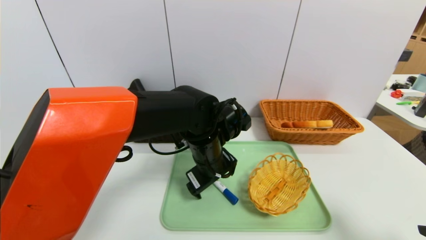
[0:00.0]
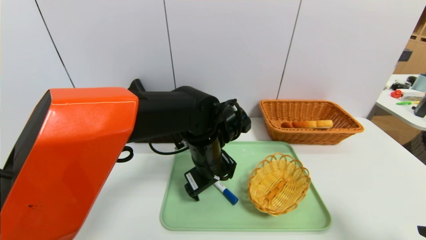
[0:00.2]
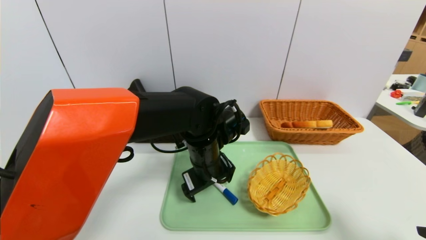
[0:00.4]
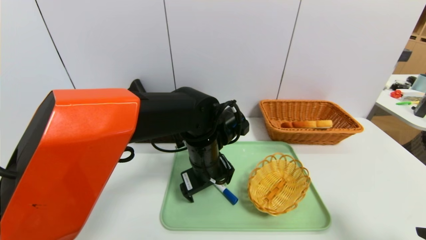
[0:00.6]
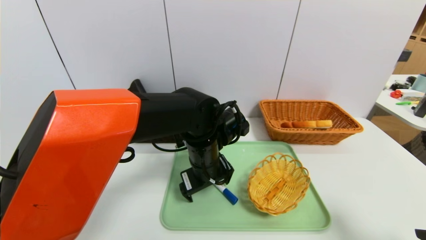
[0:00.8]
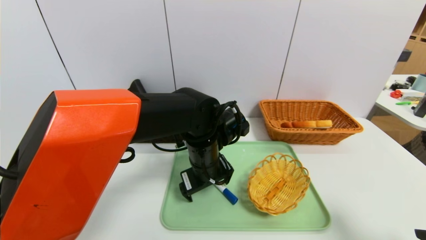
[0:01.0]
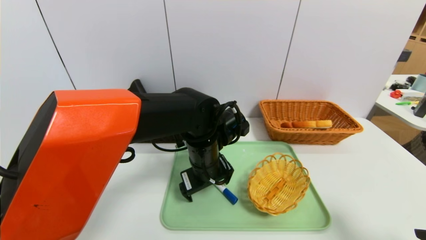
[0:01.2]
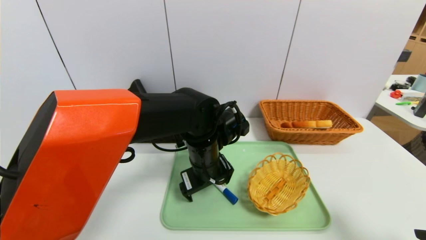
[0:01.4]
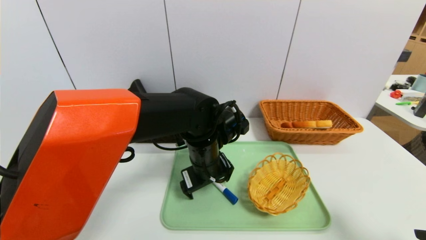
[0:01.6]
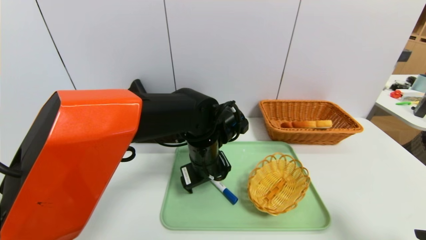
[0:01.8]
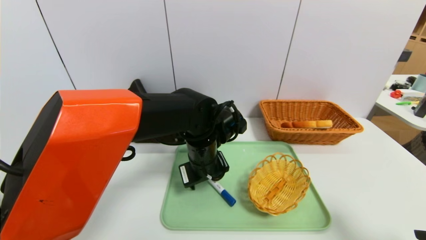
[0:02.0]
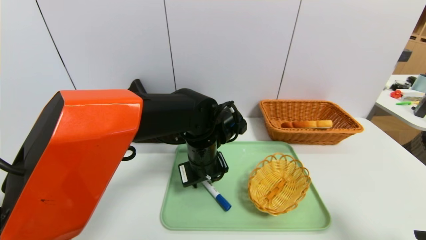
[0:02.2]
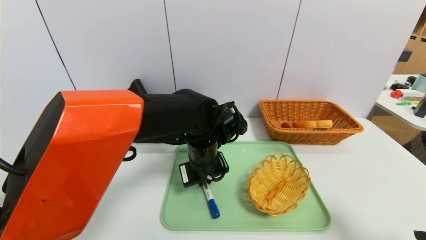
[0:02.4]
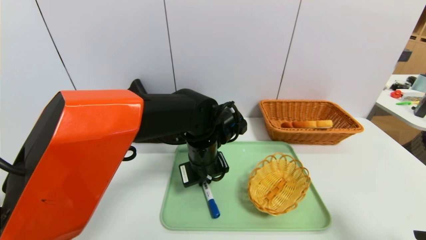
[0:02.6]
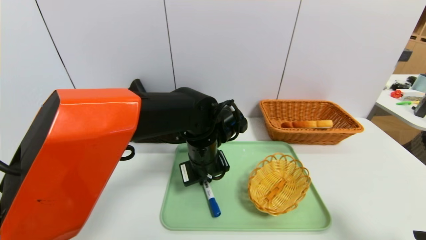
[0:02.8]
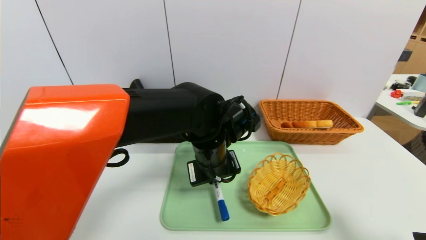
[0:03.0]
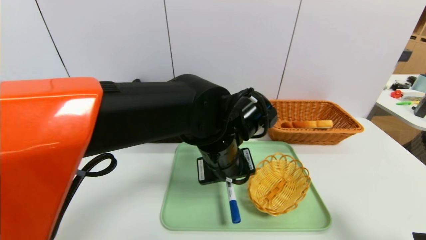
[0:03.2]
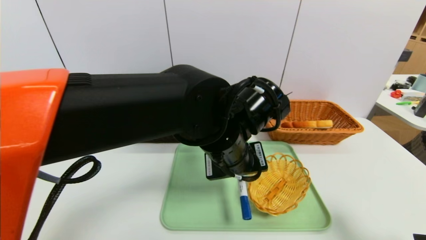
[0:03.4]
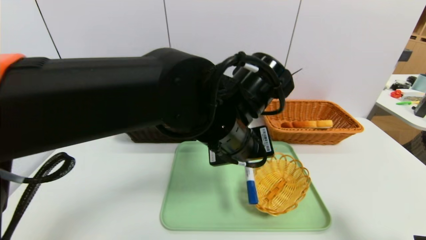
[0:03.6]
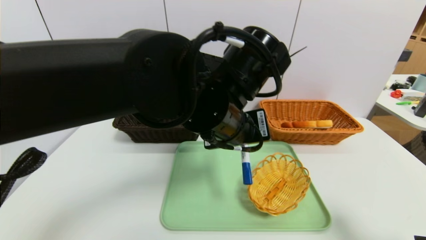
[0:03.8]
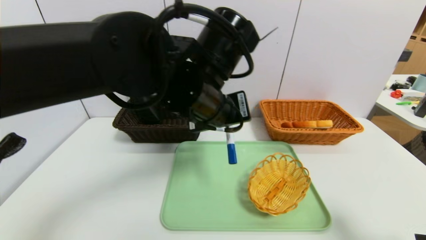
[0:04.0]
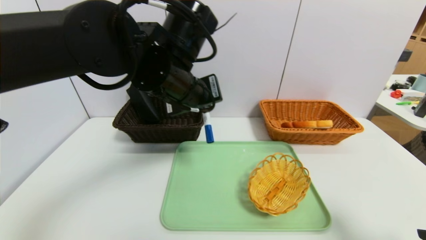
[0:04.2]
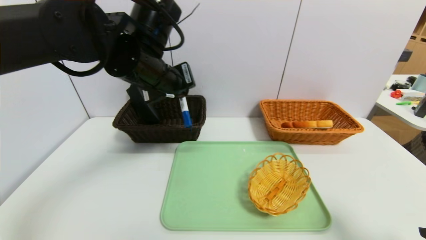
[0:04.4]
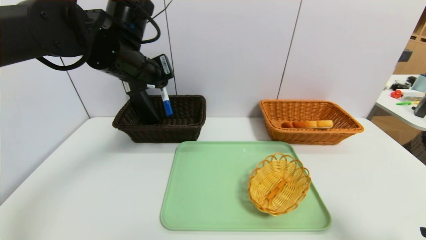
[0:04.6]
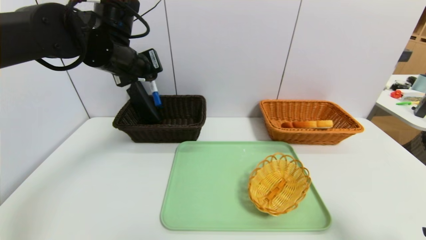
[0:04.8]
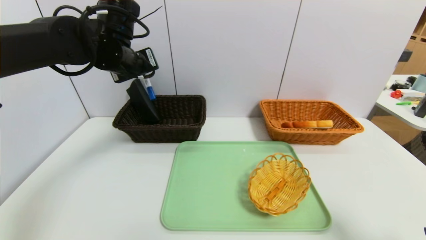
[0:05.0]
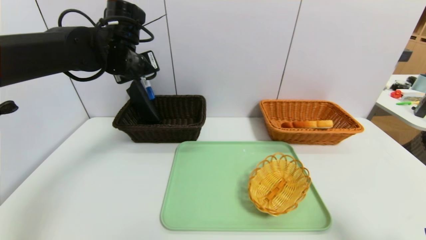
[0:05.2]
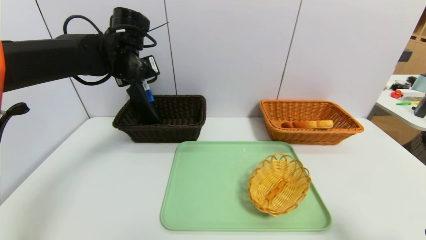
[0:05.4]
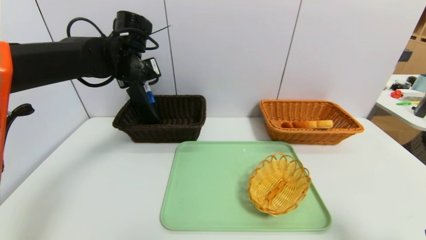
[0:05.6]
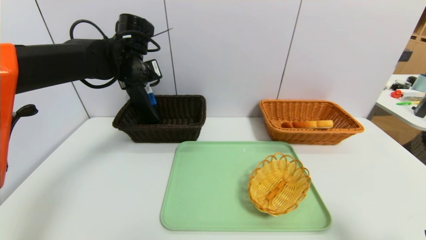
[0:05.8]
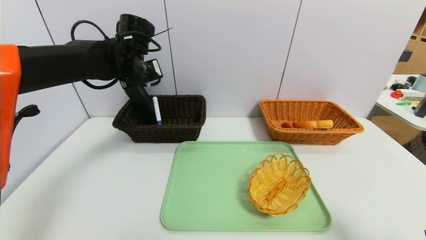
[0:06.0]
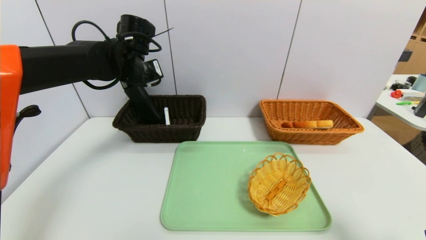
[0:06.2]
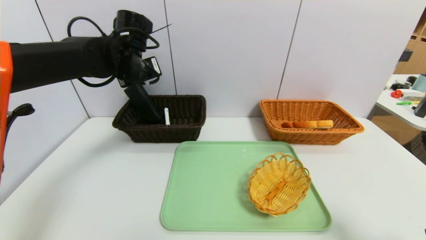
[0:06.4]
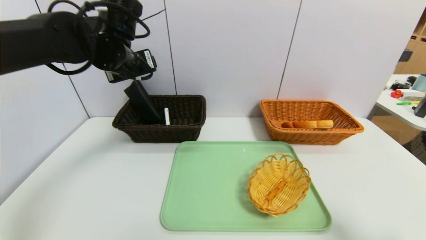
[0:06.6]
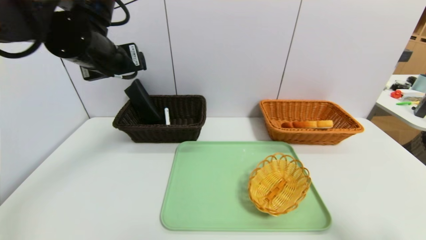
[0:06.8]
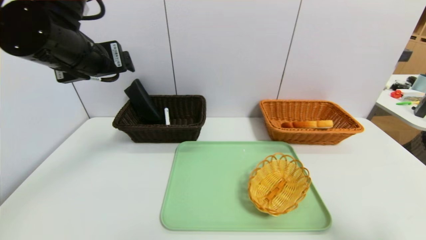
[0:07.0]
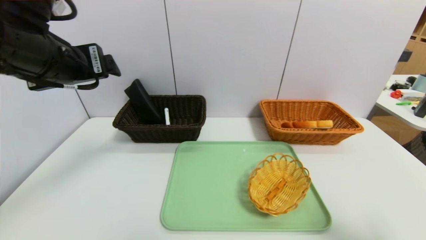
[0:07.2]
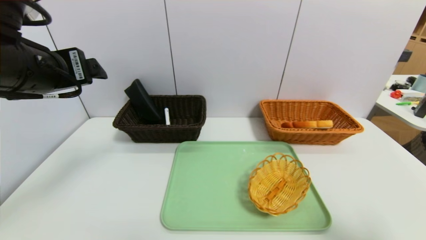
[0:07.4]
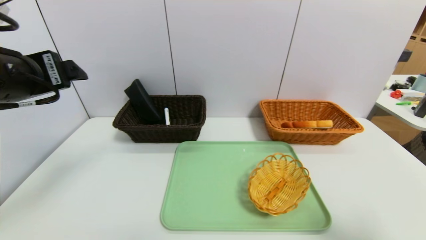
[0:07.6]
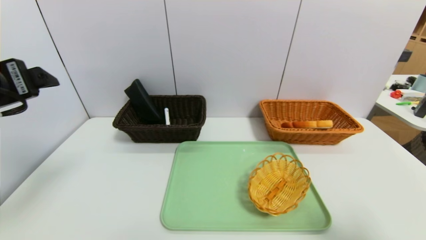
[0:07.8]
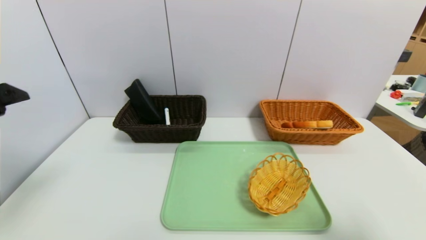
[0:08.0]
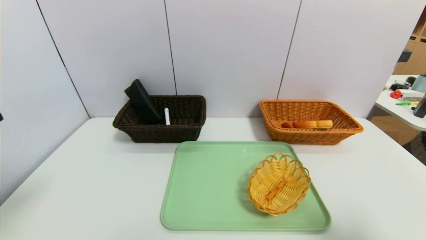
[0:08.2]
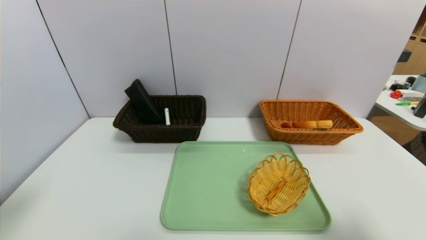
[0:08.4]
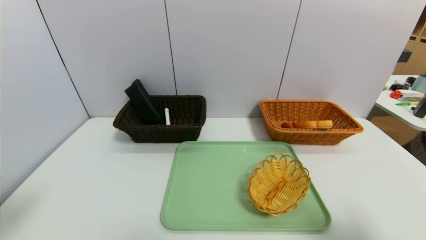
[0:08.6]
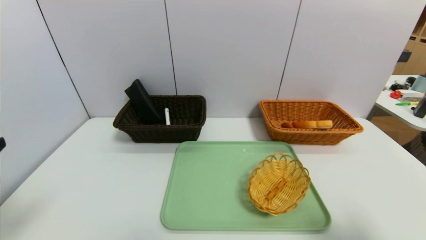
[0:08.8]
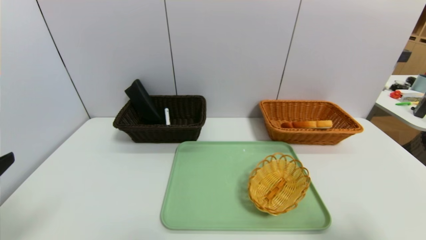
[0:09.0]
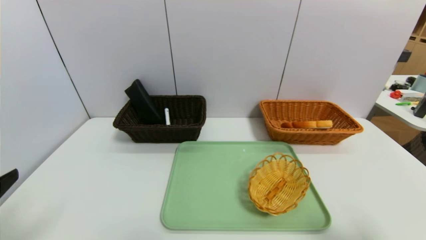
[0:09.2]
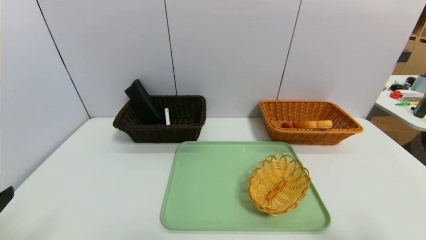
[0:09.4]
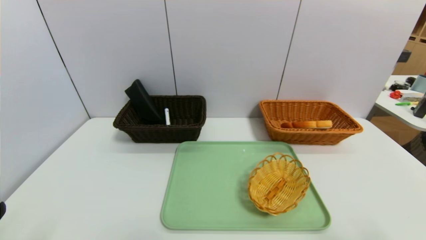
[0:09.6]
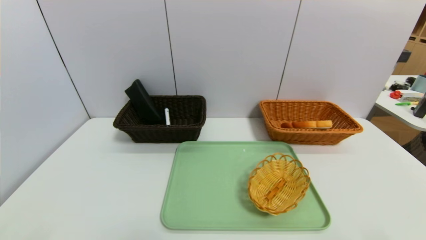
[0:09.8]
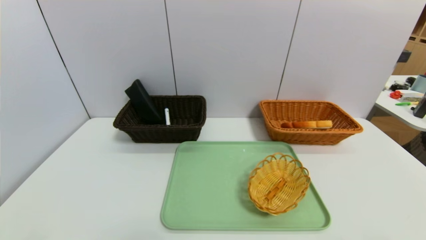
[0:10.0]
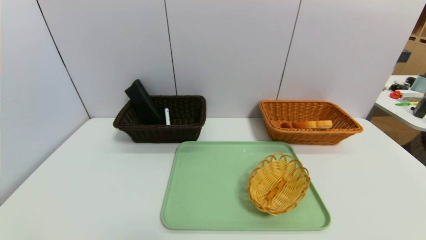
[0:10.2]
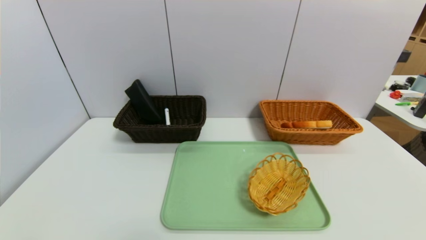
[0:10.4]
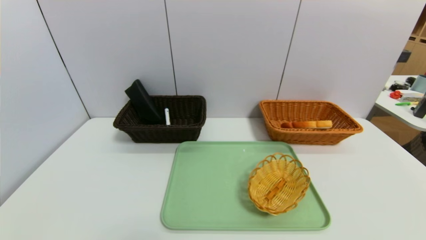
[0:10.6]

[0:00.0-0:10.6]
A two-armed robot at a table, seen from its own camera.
Task of the whole recording: place the food in the right basket with the right gripper, and place the non food items in the left basket with the left gripper.
Step, 0:00.0 to 0:06.0: Grasp the blue marker pen and put it in the left basket.
0:00.0 to 0:01.6: The grippers stay close to where they were, moving slightly.
0:01.6 to 0:03.0: The left gripper closes up.
0:03.0 to 0:04.6: The left gripper goes about 20 cm to the left, upward and forward.
0:04.6 to 0:06.0: The left gripper moves forward, approximately 5 cm, and opens its fingers.
0:06.0 to 0:07.6: The left gripper goes roughly 20 cm backward, and opens.
0:07.6 to 0:09.0: The left gripper heads backward, downward and to the left, covering some 15 cm.
0:09.0 to 0:10.6: The left gripper is displaced downward and backward by about 15 cm. Meanwhile the right gripper goes approximately 10 cm backward and downward.

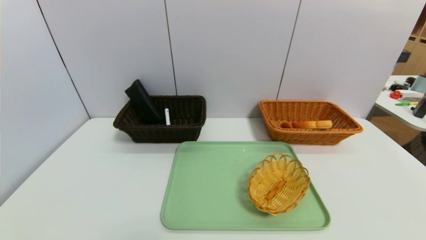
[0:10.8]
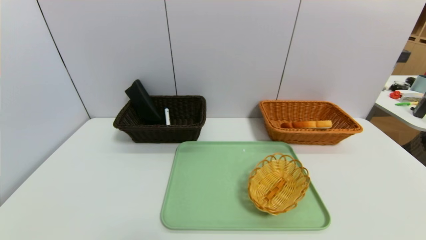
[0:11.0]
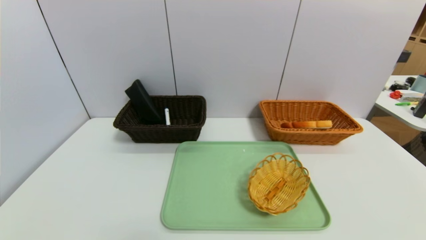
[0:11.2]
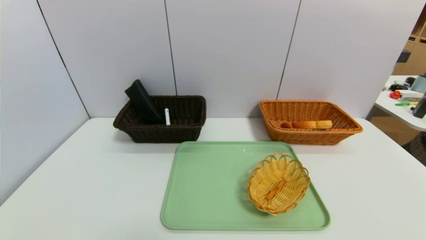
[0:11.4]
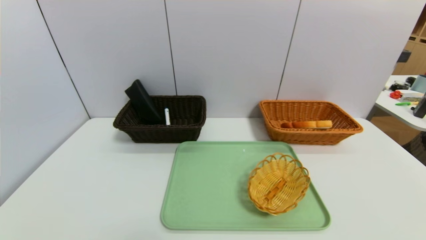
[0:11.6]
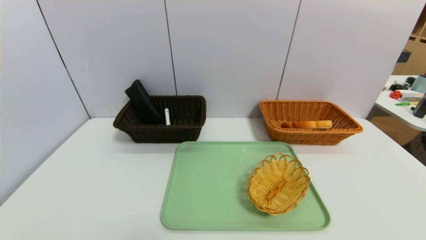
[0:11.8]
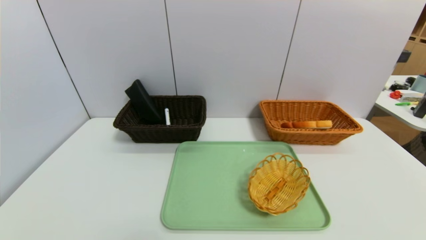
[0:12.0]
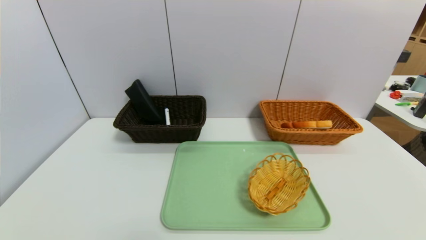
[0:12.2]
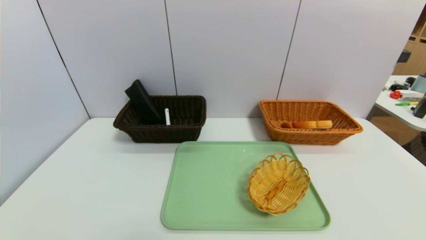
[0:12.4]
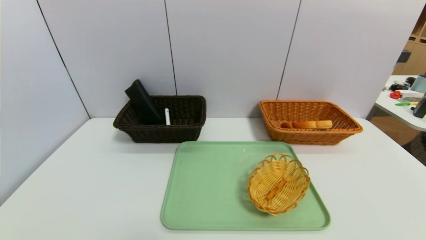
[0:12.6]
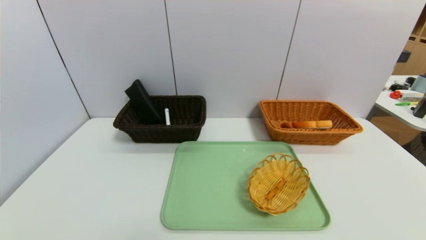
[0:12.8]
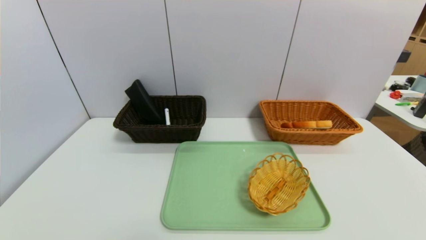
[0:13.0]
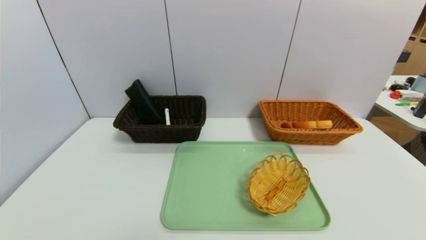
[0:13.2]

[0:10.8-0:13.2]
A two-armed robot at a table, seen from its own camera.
Task of the whole recording: place the food in the right basket with the right gripper, and place the non food items in the left basket with the left gripper.
0:12.0 to 0:13.2: Neither gripper changes place.
